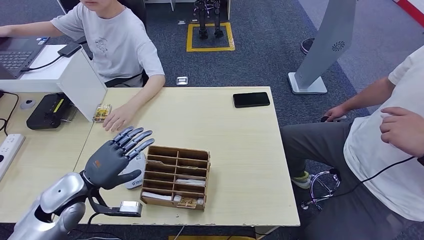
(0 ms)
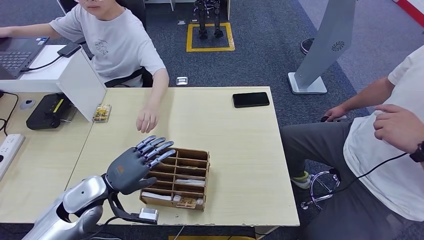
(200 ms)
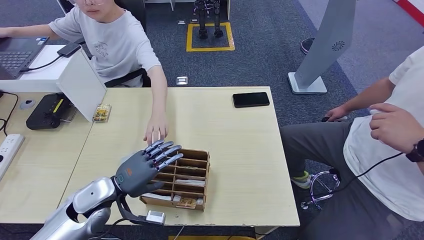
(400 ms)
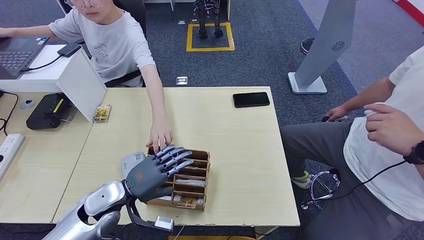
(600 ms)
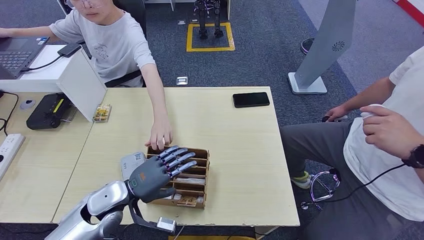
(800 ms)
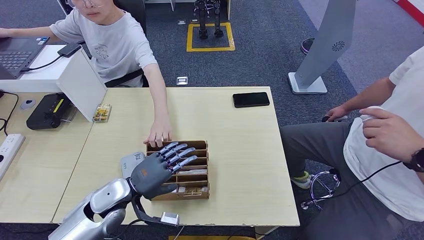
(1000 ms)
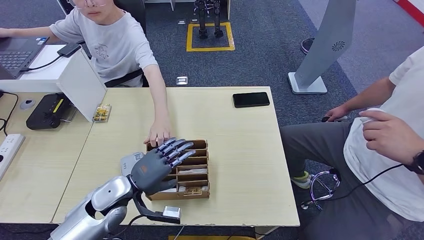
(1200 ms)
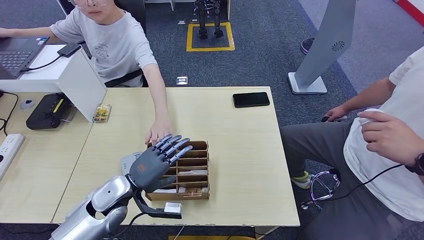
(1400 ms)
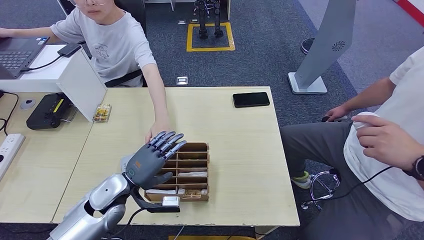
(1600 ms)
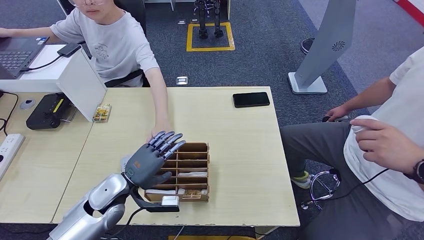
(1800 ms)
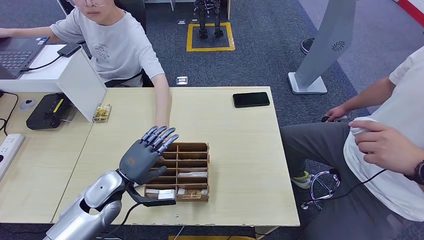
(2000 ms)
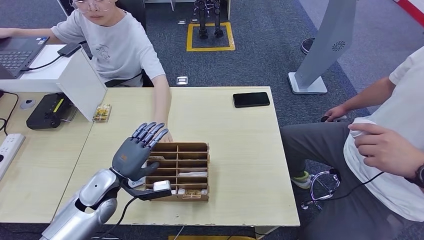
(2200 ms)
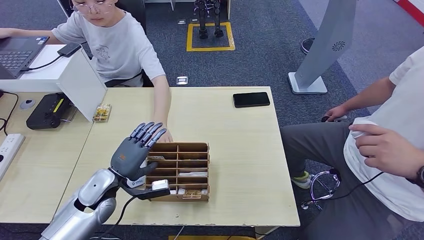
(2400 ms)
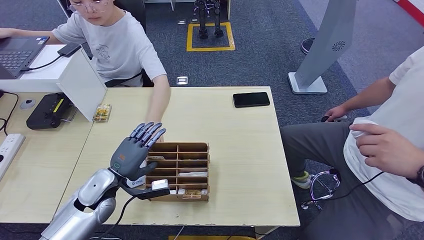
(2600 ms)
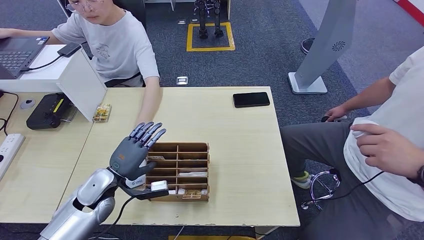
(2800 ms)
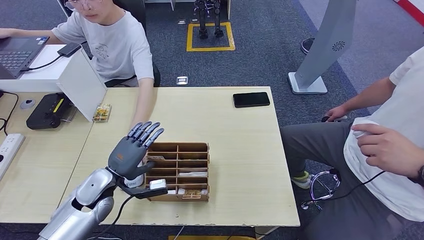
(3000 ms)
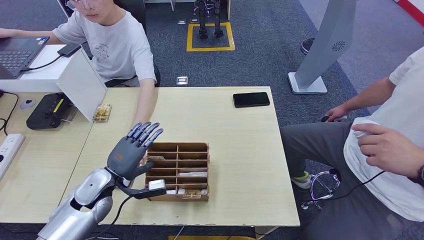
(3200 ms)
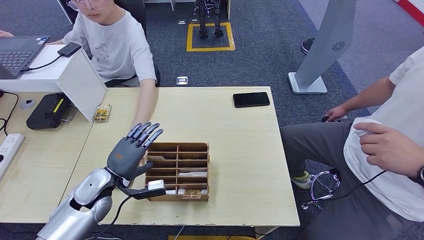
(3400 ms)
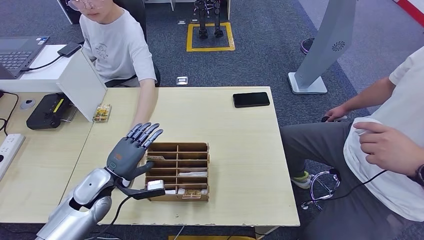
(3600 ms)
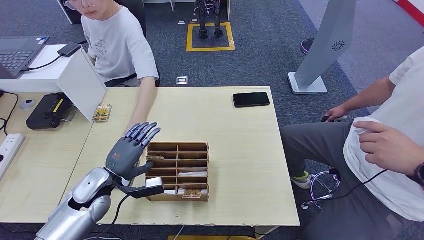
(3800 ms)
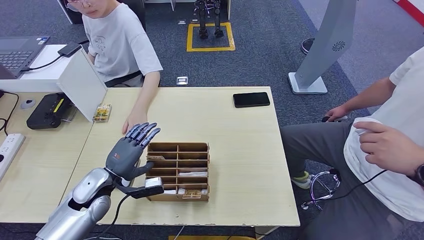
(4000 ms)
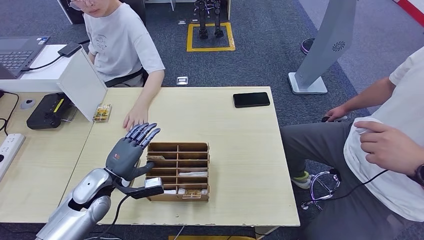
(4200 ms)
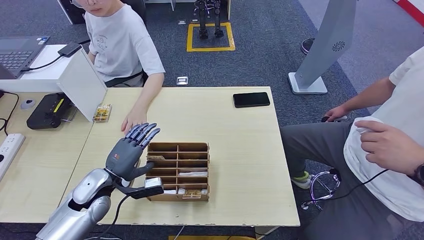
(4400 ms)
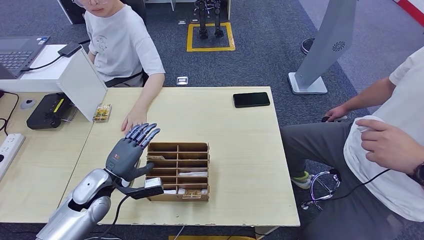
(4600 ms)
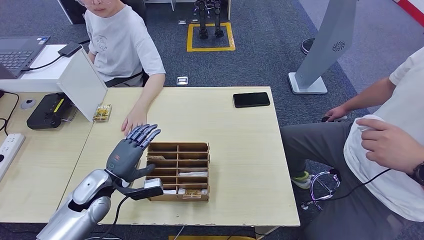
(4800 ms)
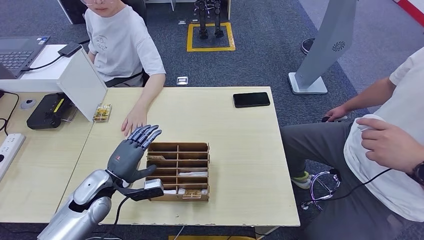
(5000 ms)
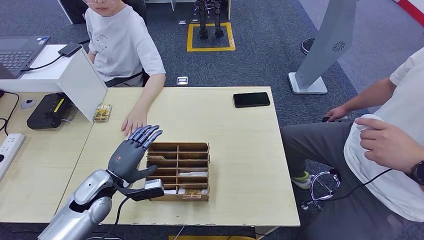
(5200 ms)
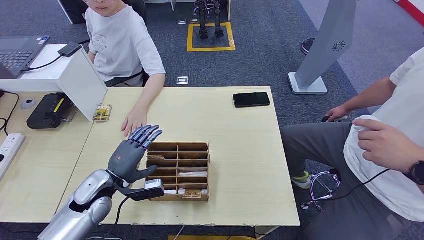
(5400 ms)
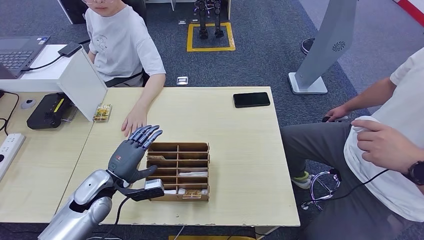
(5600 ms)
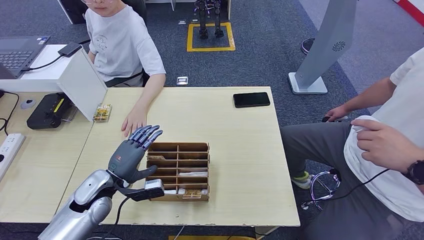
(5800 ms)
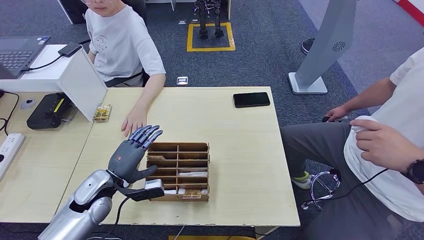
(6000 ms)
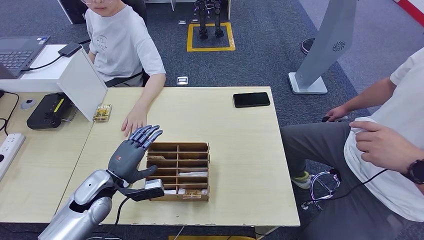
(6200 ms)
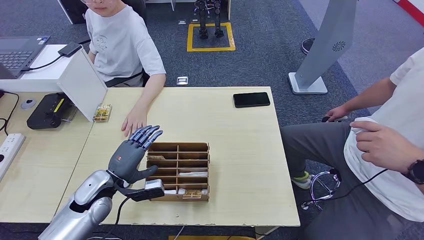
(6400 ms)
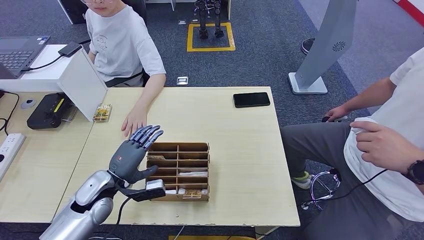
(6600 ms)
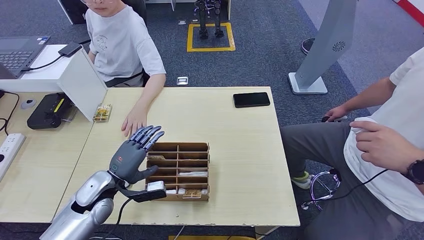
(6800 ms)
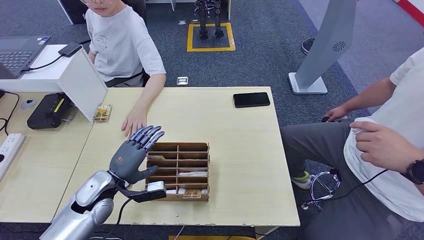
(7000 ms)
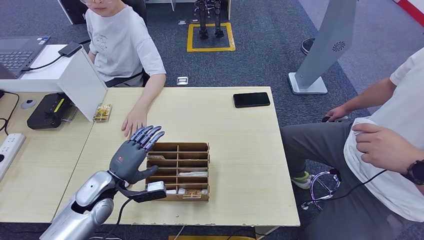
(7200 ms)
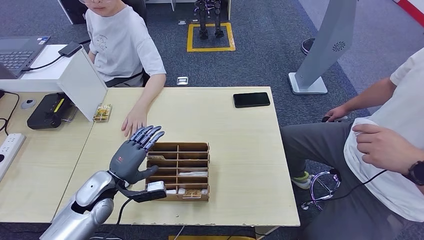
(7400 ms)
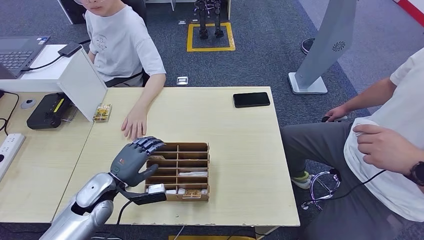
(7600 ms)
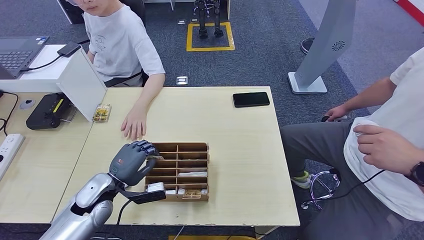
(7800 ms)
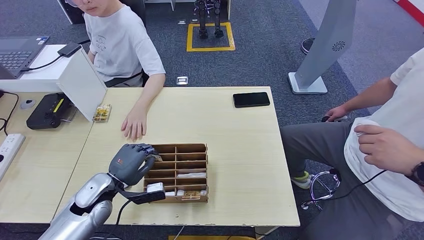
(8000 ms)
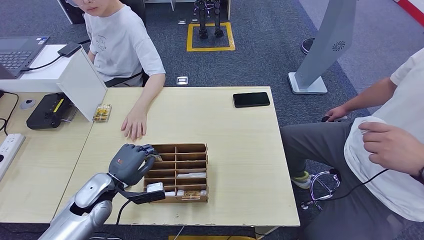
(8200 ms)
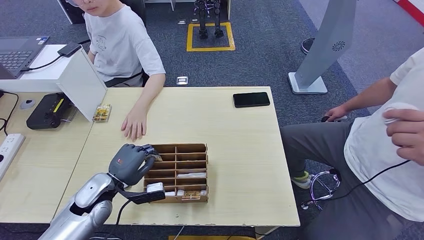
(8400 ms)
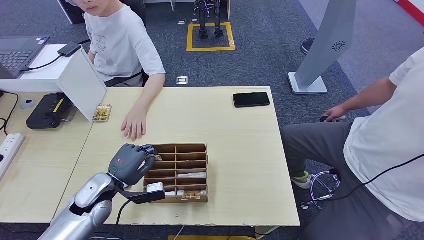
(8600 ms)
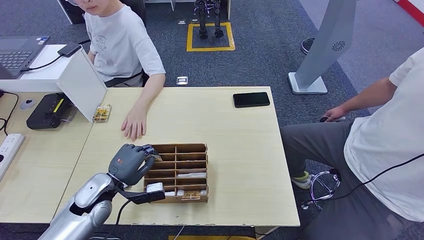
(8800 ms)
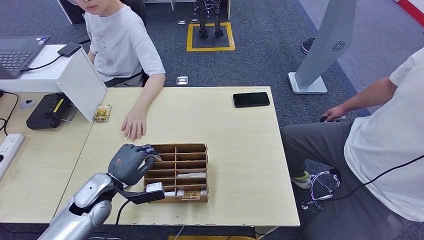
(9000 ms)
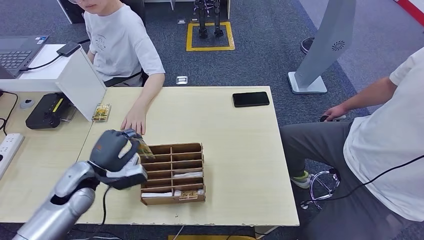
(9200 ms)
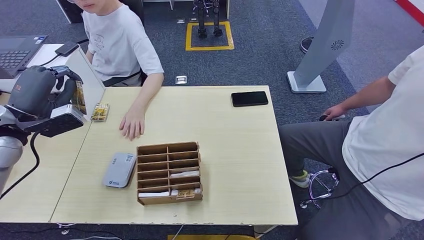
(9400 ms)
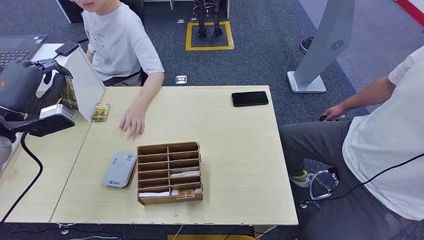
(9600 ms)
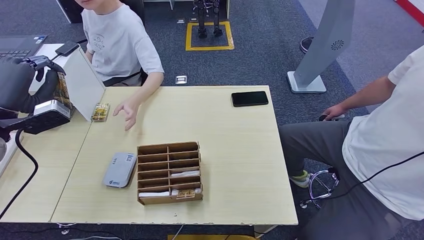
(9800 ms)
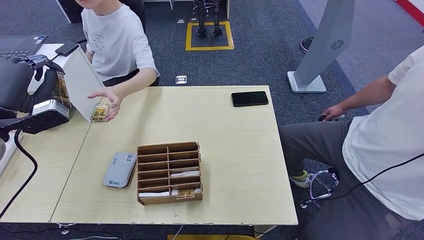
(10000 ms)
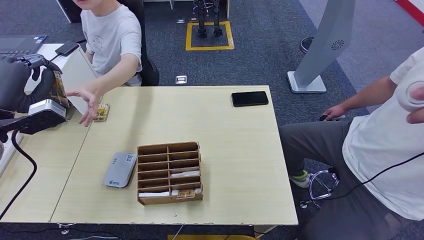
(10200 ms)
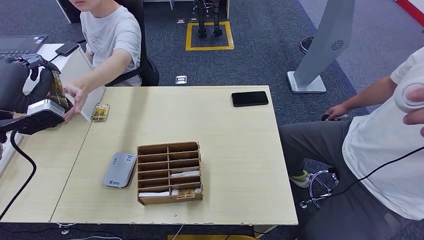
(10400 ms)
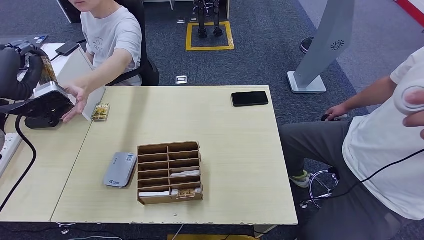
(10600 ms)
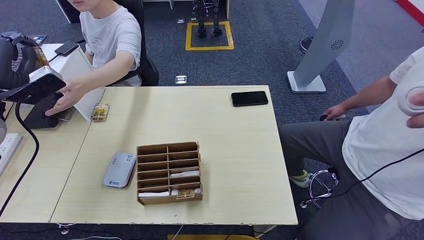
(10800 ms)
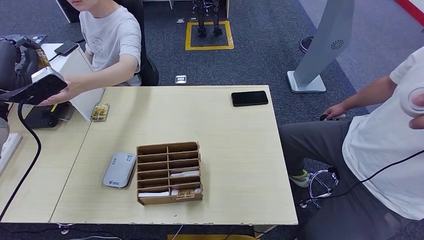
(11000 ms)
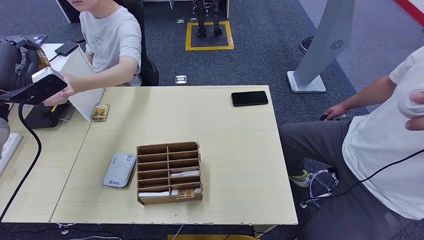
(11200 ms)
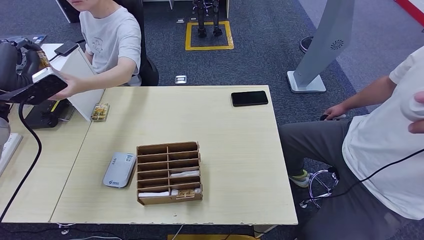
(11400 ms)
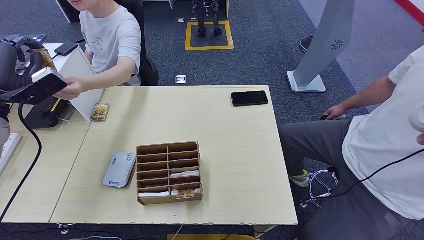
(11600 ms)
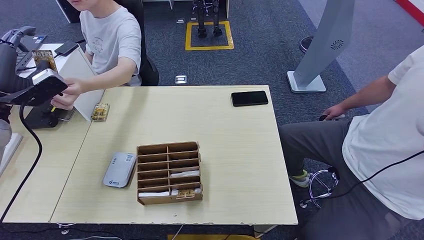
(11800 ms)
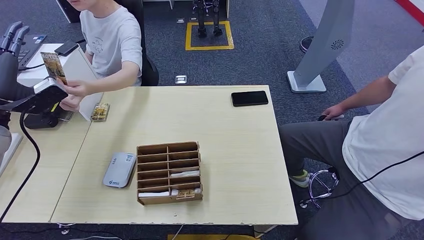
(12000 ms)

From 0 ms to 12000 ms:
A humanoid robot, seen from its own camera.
Step, from 7800 ms to 9400 ms: Pick up the room key from the key card box.
Step, from 10200 ms to 12000 ms: Hand the room key to the person.
From 0 ms to 1600 ms: The left hand heads to the right, covering about 10 cm.
From 1600 ms to 4400 ms: The hands stay close to where they were, moving slightly.
From 4400 ms to 6000 ms: Neither hand changes place.
From 6000 ms to 9000 ms: The two hands keep their place.
From 10400 ms to 12000 ms: The hands stay close to where they were, moving slightly.
